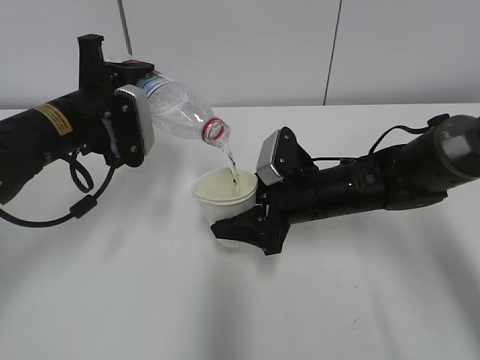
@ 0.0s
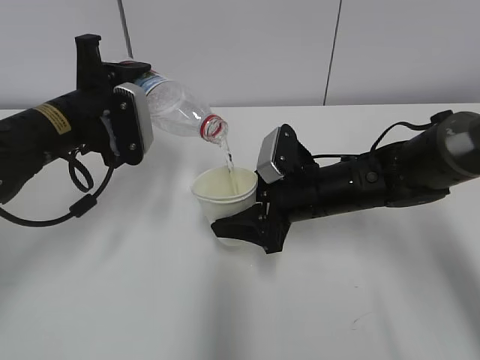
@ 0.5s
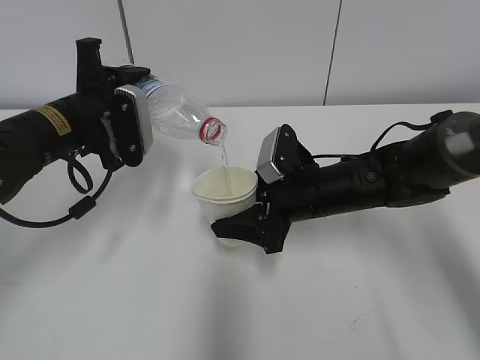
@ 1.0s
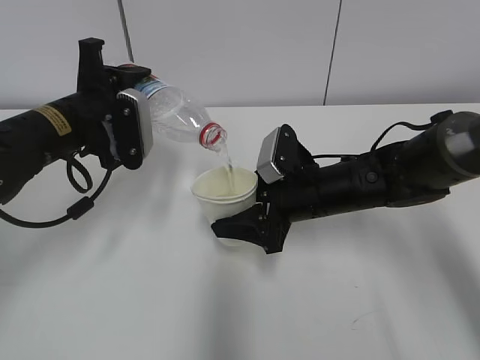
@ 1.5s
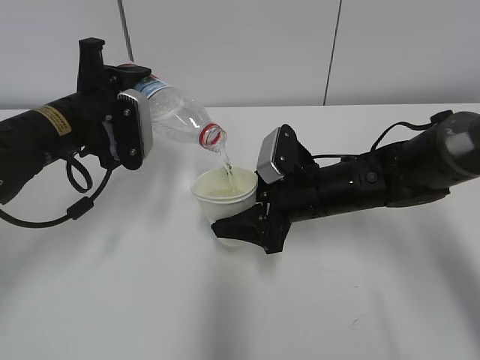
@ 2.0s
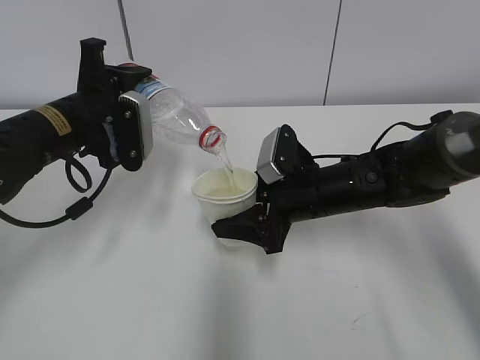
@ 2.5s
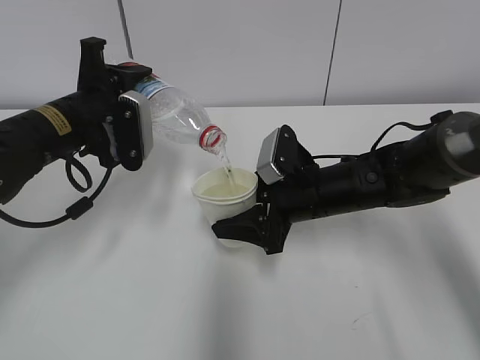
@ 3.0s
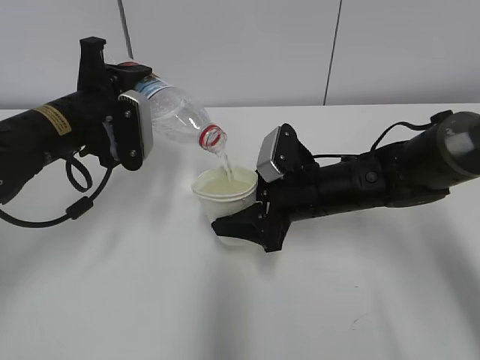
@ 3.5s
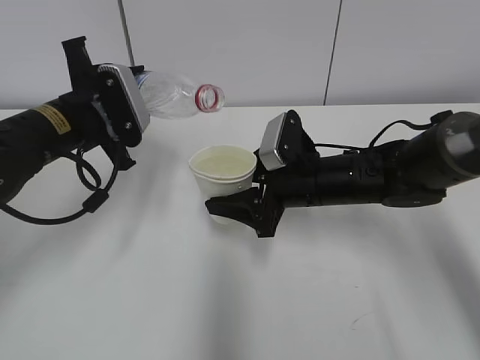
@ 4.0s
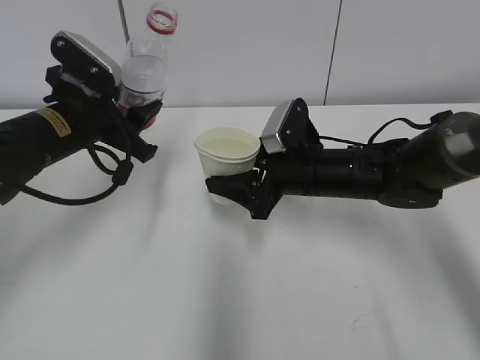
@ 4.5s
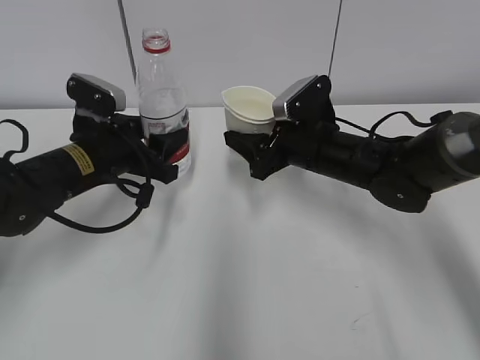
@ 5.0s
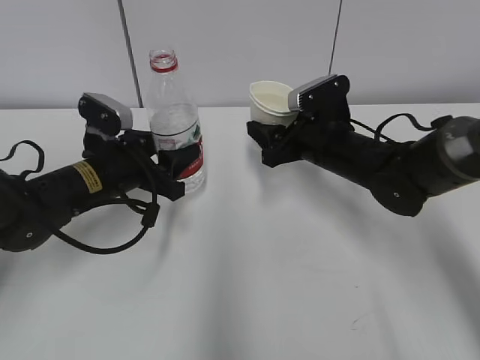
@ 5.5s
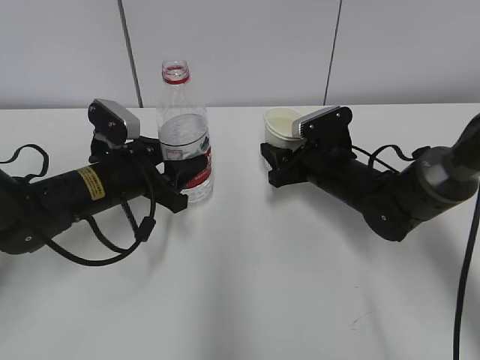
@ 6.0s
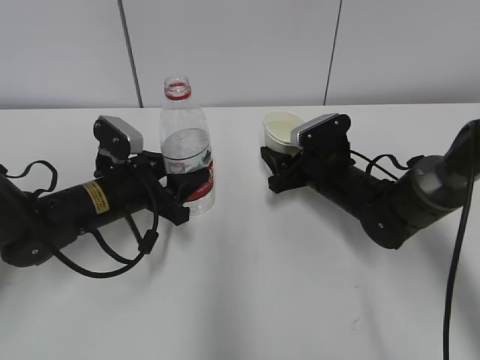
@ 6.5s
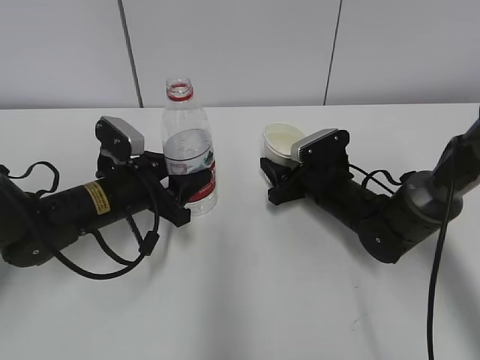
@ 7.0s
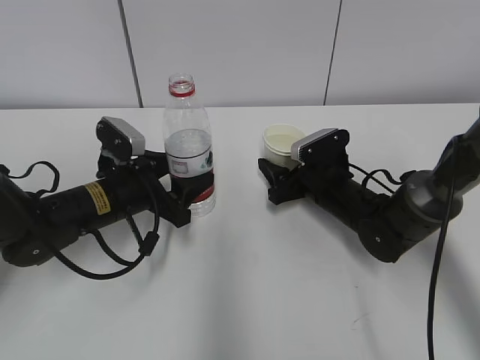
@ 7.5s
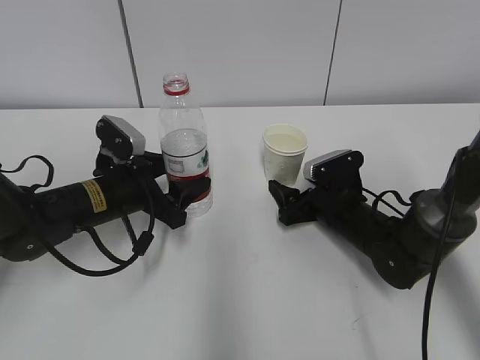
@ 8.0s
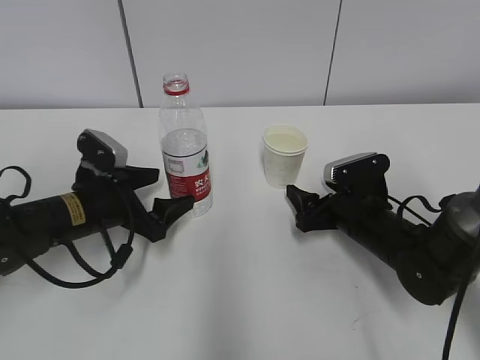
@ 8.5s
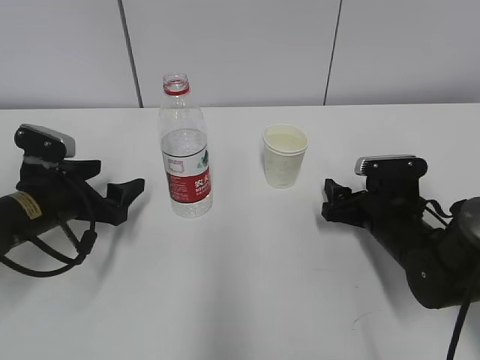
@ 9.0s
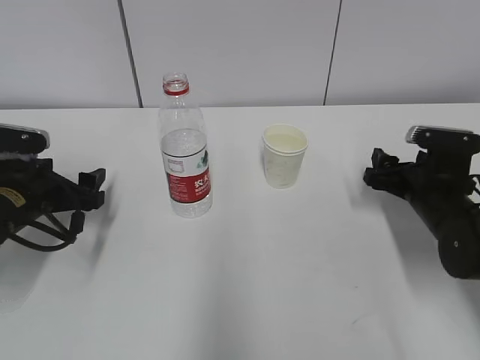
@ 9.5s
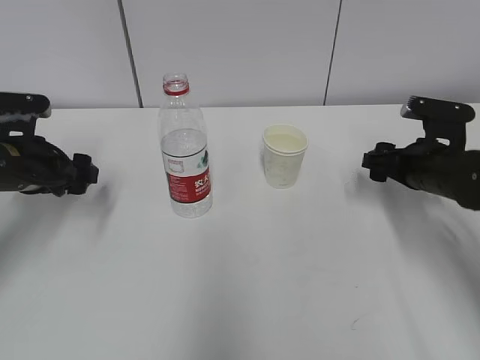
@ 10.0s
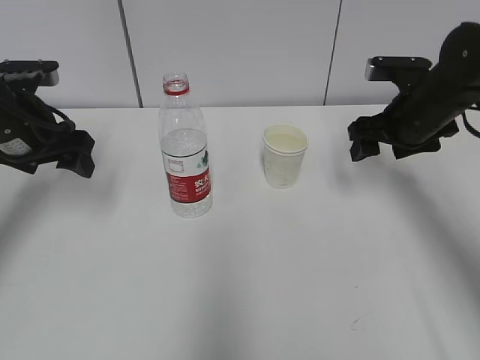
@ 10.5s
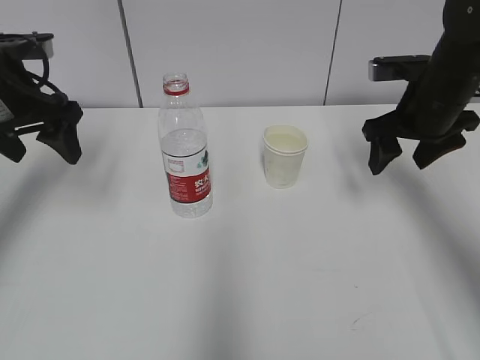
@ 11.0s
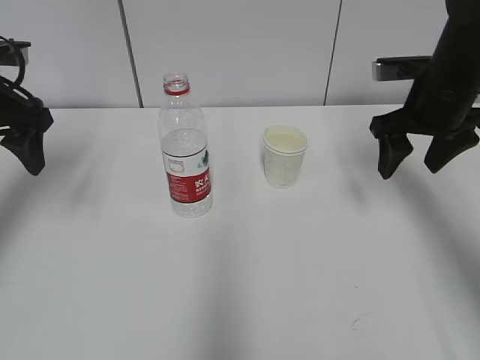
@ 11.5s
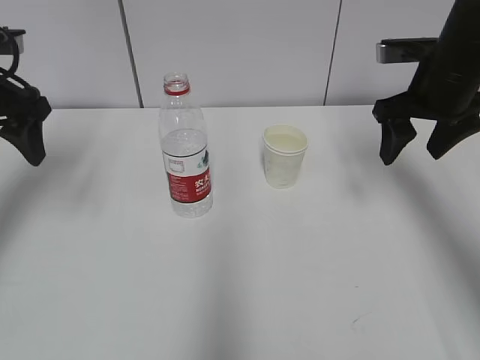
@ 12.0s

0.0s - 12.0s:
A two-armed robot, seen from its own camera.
Step, 0.5s - 1.0s: Collect water with the left hand.
0.0s - 2.0s: Both grippers stay about where they are.
2.0s - 4.0s: The grippers make only small movements.
4.0s - 6.0s: The right gripper shifts roughly 5 cm forward; the left gripper travels downward by roughly 10 cm.
6.0s - 8.0s: The right gripper is displaced downward by approximately 5 cm, and opens.
8.0s - 10.0s: The left gripper goes approximately 10 cm to the left and upward; the right gripper moves to the right and upward, roughly 15 cm.
10.0s - 12.0s: The grippers both shift upward by some 15 cm.

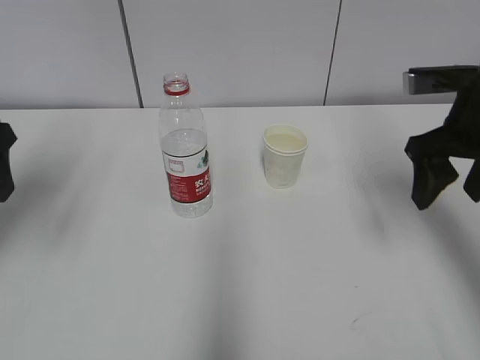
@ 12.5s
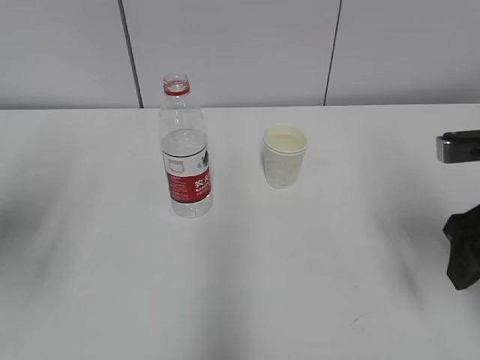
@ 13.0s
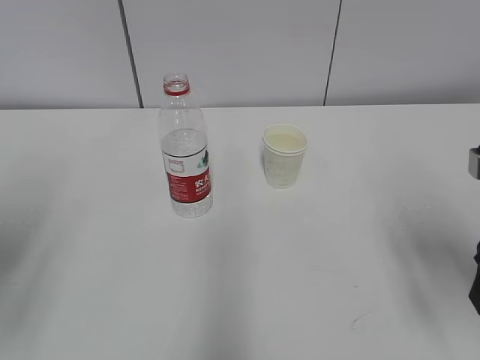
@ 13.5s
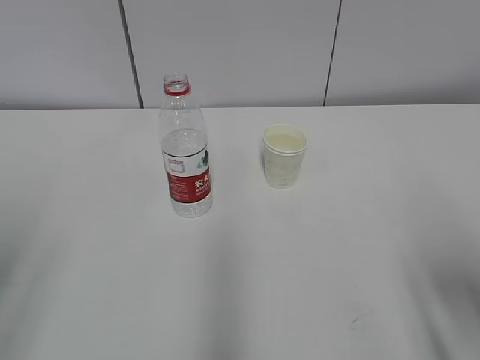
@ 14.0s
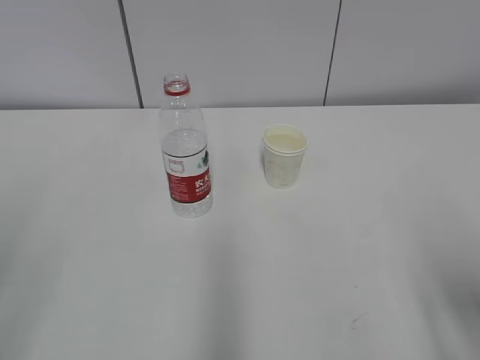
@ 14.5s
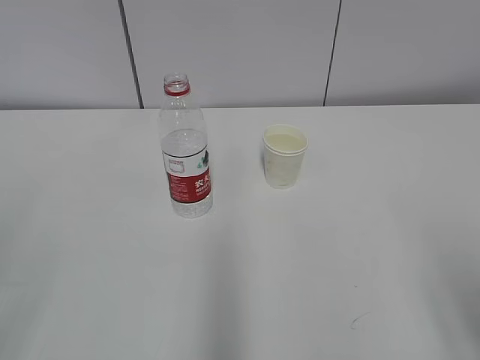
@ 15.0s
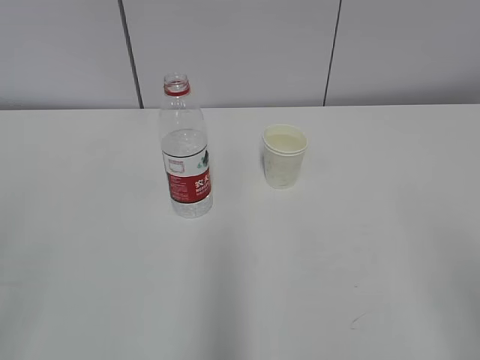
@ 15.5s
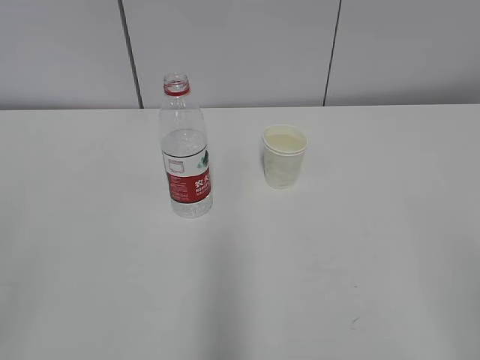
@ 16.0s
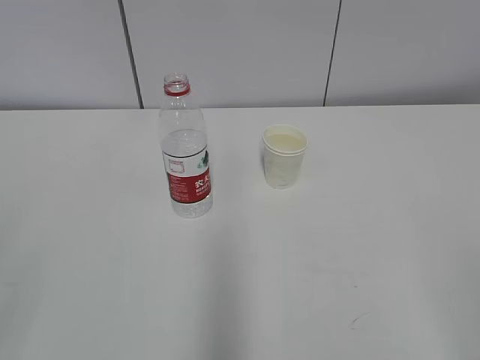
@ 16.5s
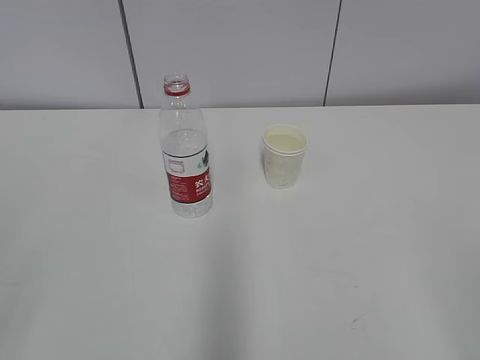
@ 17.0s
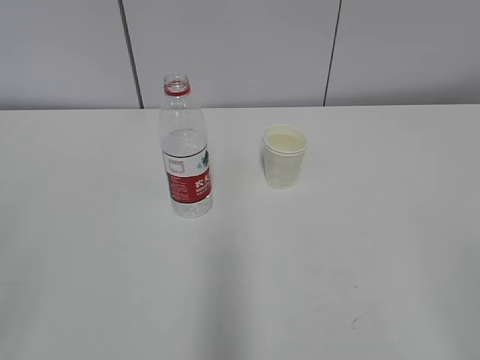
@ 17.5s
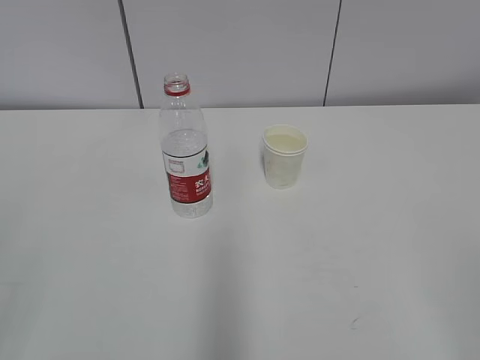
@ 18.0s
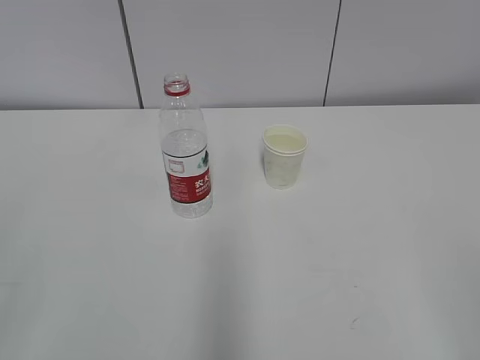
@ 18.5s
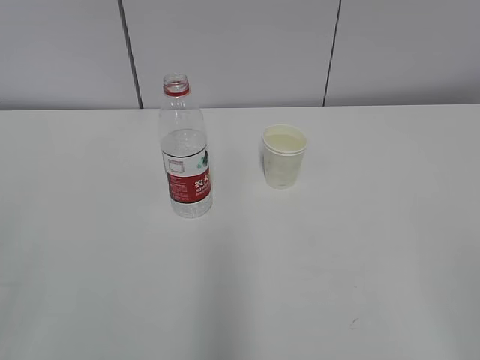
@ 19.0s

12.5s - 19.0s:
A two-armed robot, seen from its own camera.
12.5s - 14.5s: Both grippers travel together backward, approximately 20 cm.
14.5s - 17.0s: The right gripper travels backward by about 15 cm.
17.0s - 19.0s: The two grippers keep their place.
